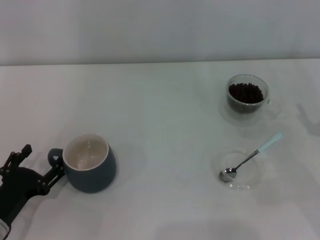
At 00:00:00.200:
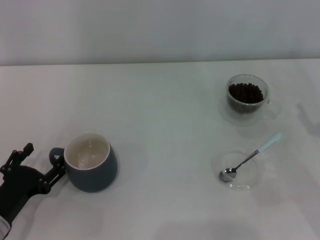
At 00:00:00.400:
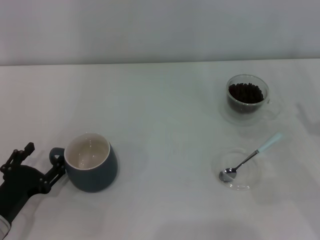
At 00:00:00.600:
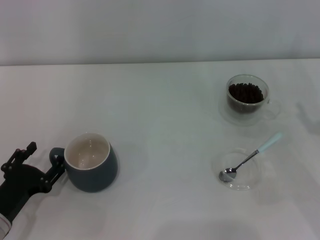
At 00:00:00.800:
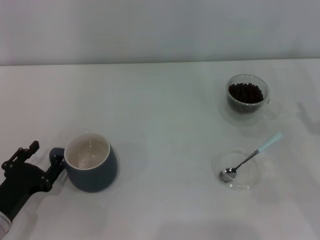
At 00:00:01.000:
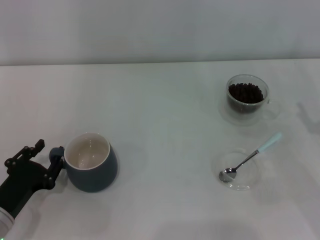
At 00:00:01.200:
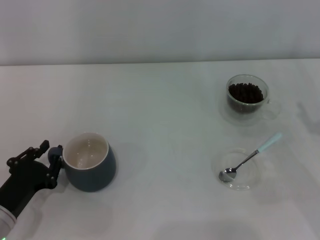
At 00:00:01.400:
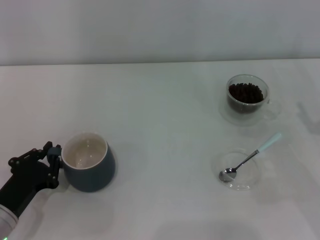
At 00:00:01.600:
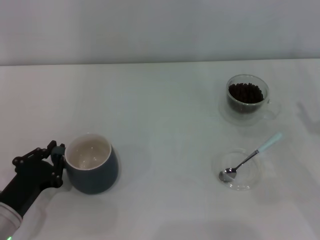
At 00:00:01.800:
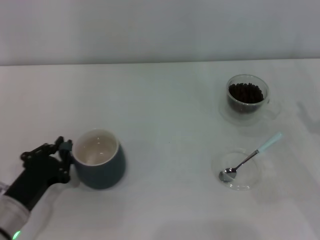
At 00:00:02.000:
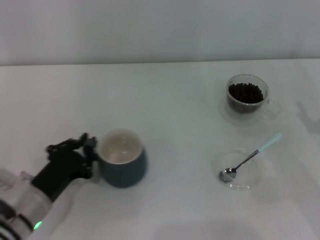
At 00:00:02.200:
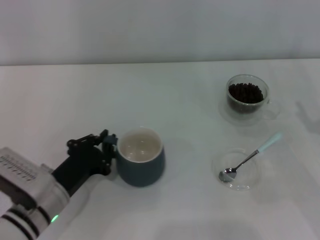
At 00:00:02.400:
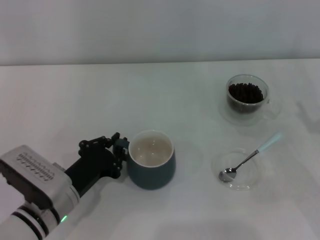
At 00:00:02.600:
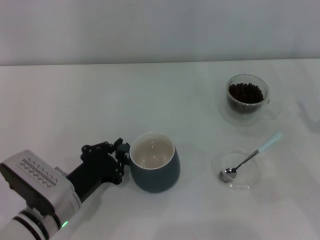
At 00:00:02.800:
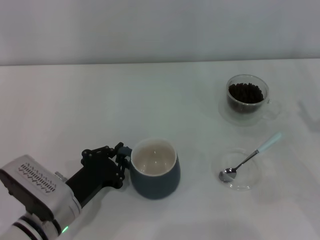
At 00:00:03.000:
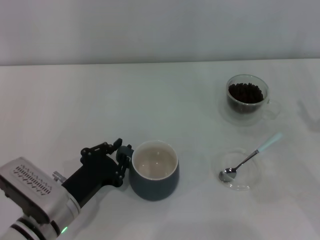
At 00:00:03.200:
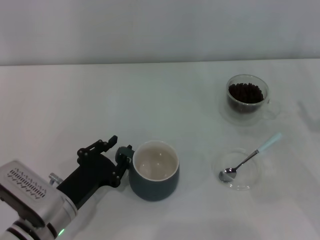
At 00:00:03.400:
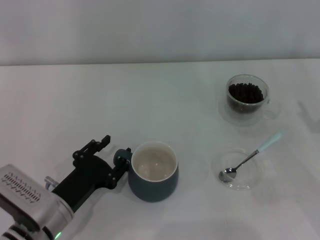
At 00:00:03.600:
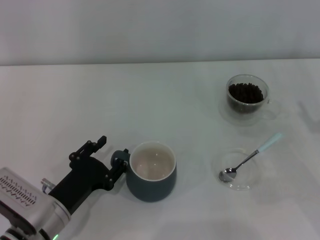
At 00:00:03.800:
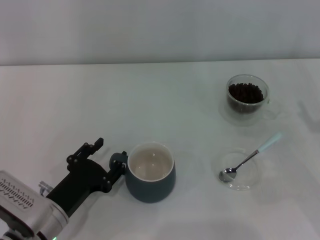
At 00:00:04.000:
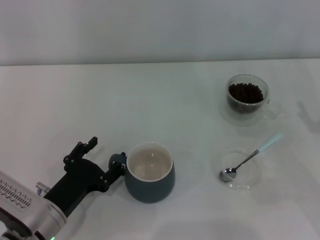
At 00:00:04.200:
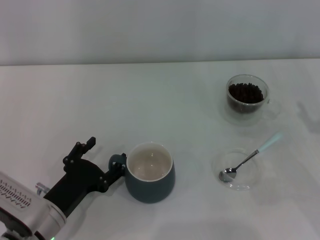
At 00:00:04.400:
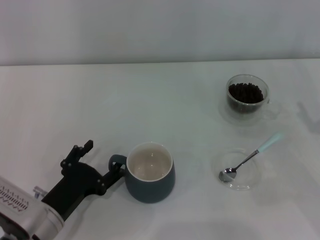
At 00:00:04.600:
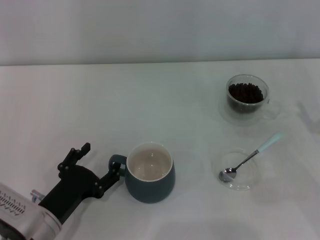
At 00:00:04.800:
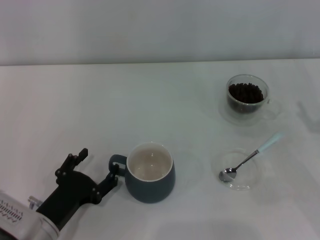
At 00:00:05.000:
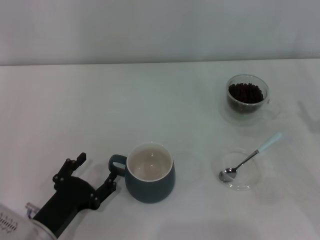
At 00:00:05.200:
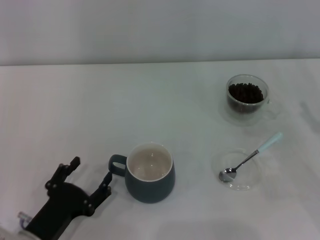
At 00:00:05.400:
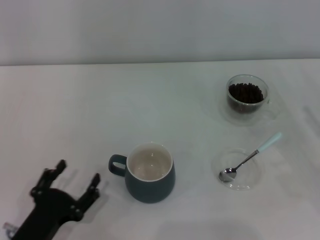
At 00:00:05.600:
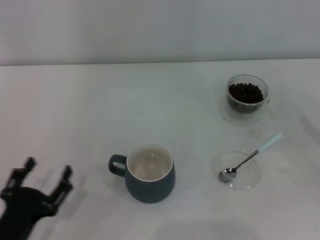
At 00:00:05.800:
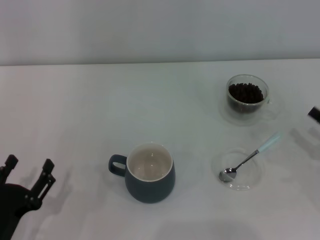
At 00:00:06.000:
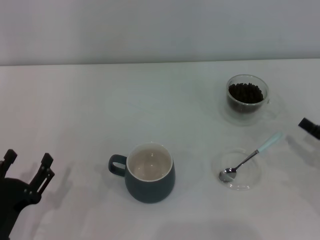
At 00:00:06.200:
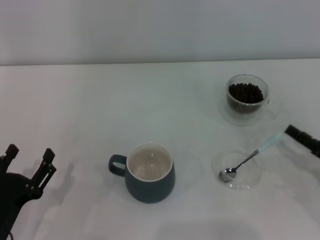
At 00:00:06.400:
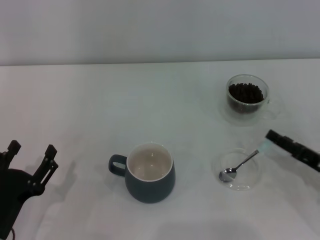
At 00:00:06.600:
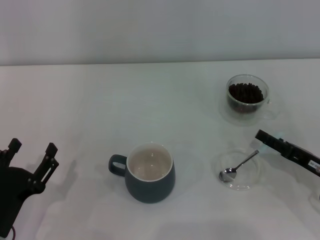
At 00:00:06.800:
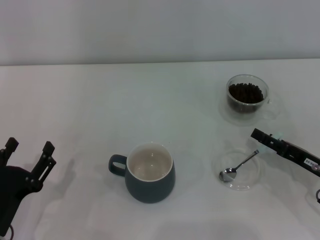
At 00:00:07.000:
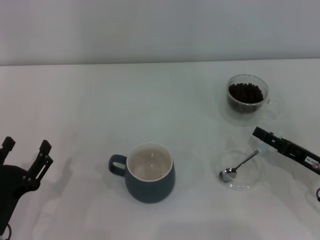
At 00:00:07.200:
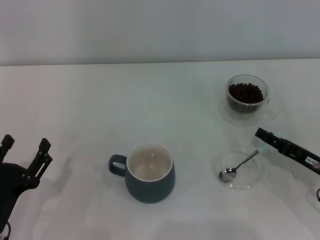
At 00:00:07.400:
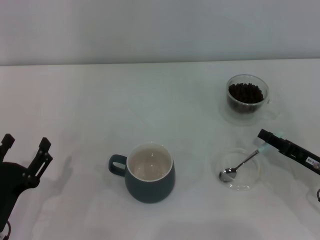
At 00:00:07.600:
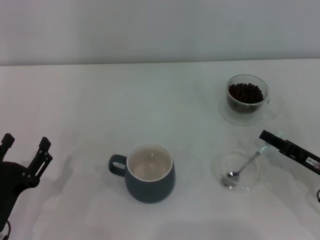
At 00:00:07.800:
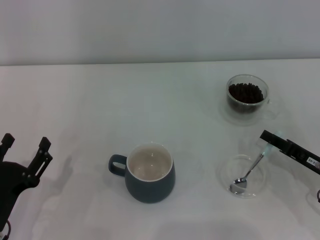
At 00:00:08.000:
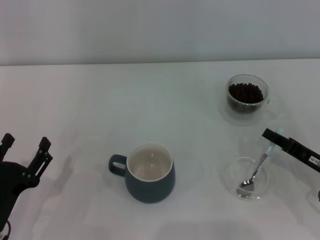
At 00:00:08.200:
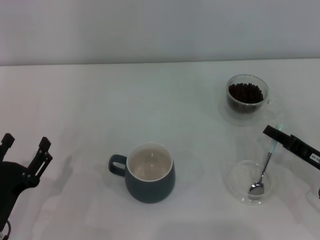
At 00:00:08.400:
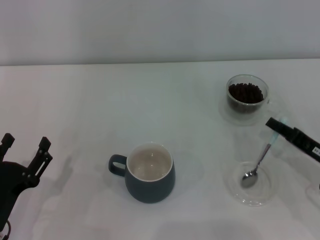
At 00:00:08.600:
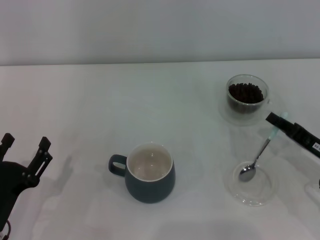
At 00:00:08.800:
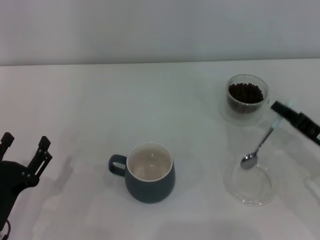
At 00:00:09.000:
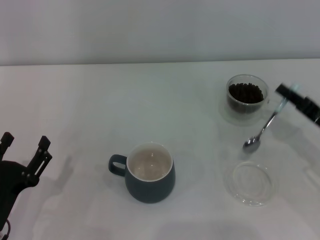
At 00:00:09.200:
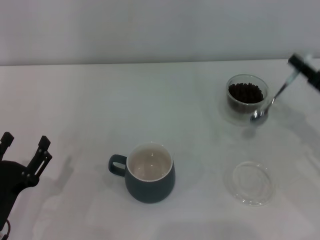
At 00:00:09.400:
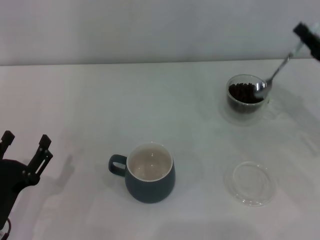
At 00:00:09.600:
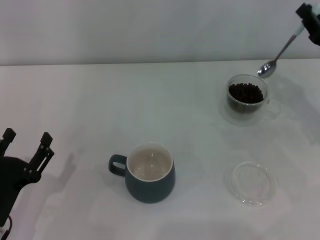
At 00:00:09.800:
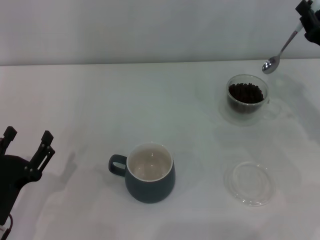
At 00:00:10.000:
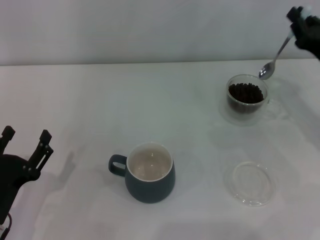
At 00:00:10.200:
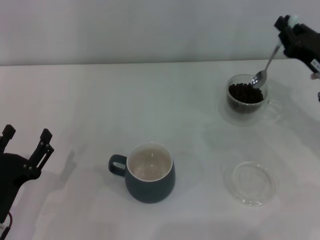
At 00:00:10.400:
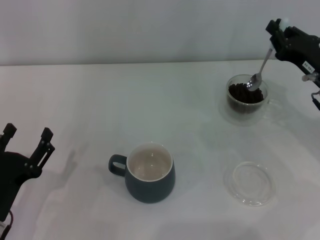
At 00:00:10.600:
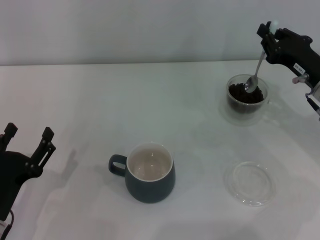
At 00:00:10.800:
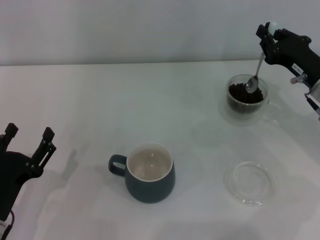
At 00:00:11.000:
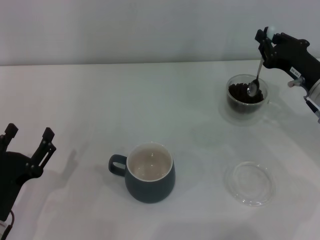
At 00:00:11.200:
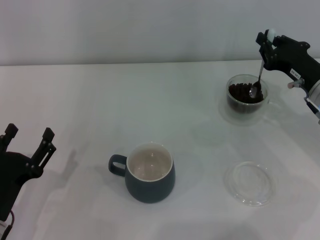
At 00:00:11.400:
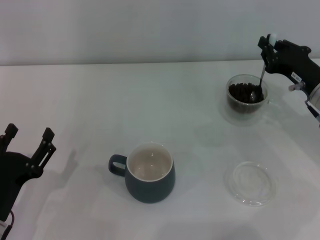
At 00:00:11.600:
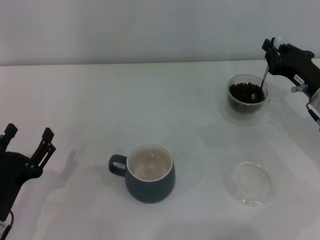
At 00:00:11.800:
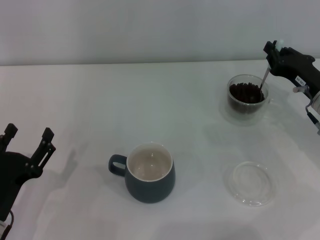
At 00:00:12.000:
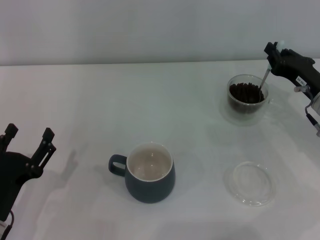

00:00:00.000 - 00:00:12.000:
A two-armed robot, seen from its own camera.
Task of the whole recording: Use a blue spoon to take out the coffee beans from the glass and pour them into the gray cup.
Step, 00:00:00.000 - 00:00:05.400: Move the cup to the center of view with the left gripper.
Step, 00:00:05.600 - 00:00:08.800: Pick up the spoon with the right gripper.
00:00:00.000 - 00:00:01.600: The left gripper closes.
00:00:01.600 - 00:00:03.000: The left gripper shifts about 10 cm to the right.
00:00:03.000 - 00:00:04.400: The left gripper opens up.
00:00:04.400 - 00:00:06.000: The right gripper moves roughly 5 cm. Meanwhile the left gripper goes about 10 cm to the left and backward.
00:00:06.000 - 00:00:07.600: The right gripper travels to the left by roughly 5 cm, and closes up.
00:00:07.600 - 00:00:09.000: The grippers move only a little.
00:00:09.000 - 00:00:10.400: The right gripper heads forward, covering roughly 5 cm.
00:00:10.400 - 00:00:12.000: The grippers move only a little.

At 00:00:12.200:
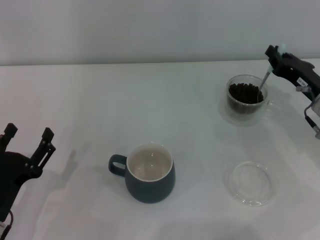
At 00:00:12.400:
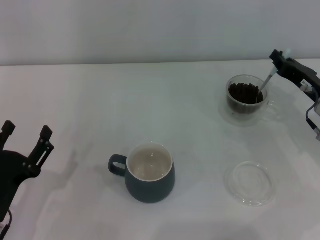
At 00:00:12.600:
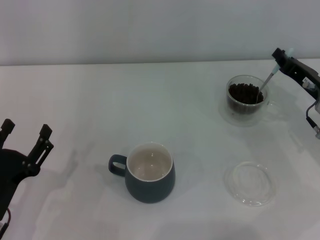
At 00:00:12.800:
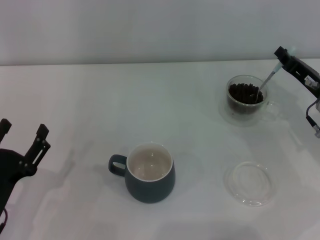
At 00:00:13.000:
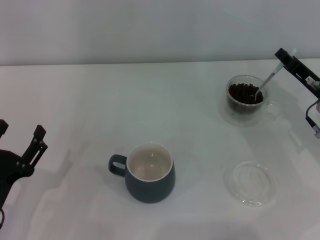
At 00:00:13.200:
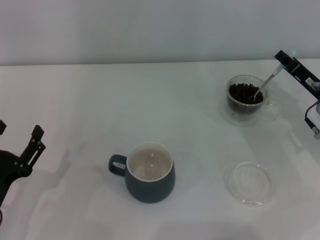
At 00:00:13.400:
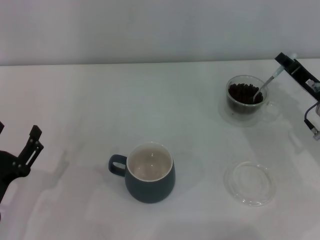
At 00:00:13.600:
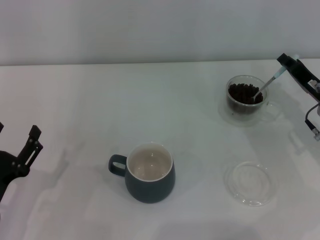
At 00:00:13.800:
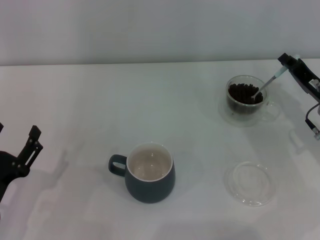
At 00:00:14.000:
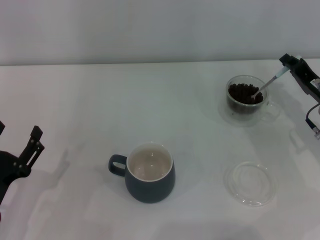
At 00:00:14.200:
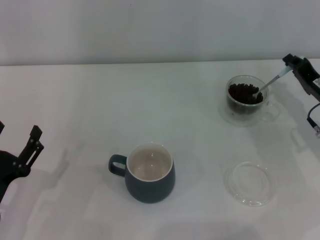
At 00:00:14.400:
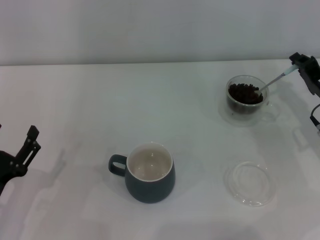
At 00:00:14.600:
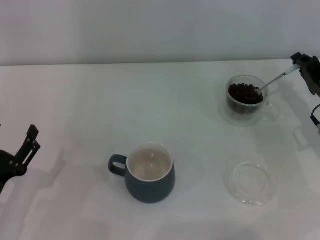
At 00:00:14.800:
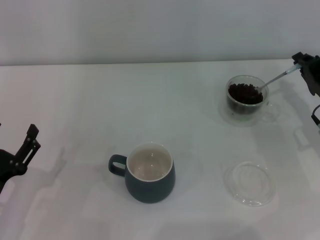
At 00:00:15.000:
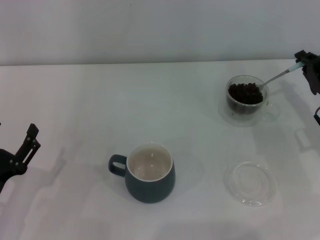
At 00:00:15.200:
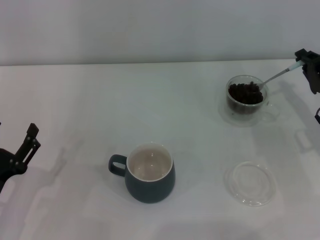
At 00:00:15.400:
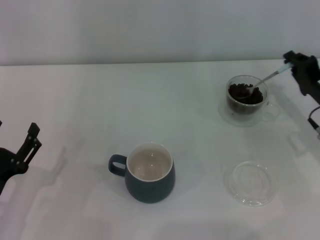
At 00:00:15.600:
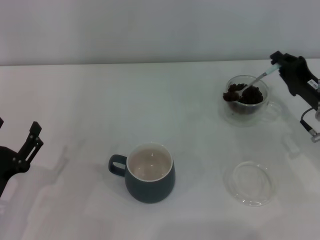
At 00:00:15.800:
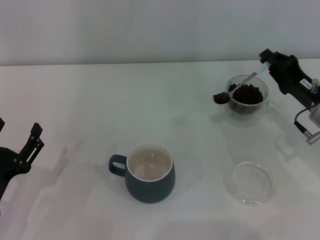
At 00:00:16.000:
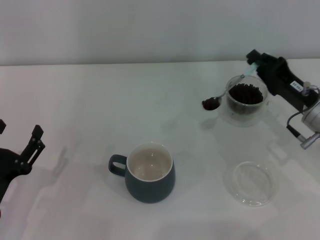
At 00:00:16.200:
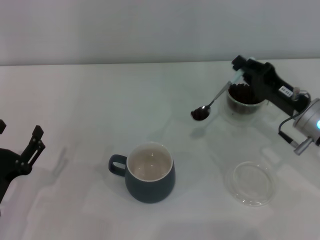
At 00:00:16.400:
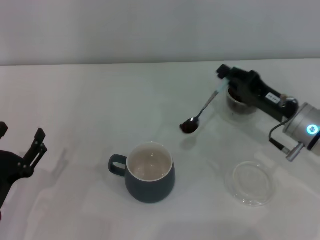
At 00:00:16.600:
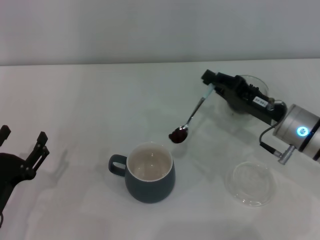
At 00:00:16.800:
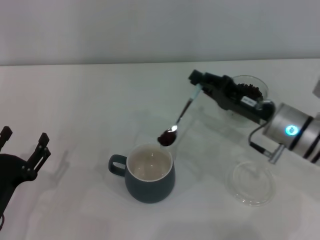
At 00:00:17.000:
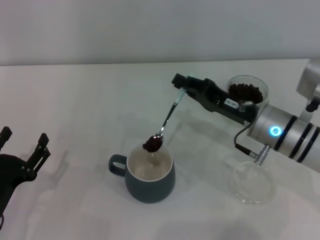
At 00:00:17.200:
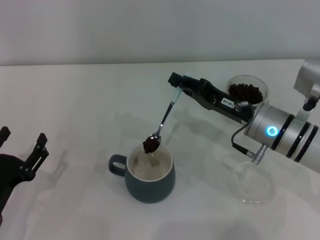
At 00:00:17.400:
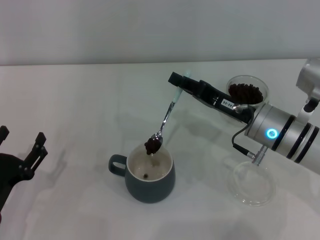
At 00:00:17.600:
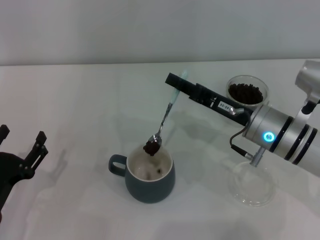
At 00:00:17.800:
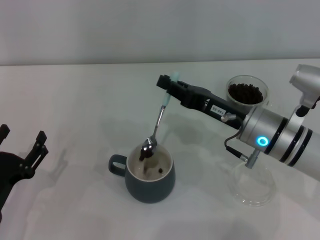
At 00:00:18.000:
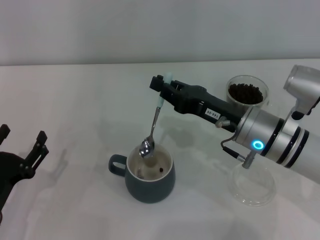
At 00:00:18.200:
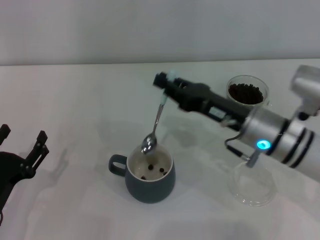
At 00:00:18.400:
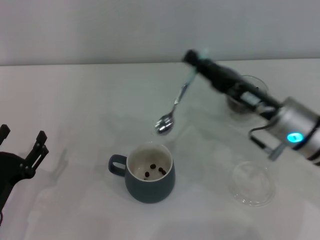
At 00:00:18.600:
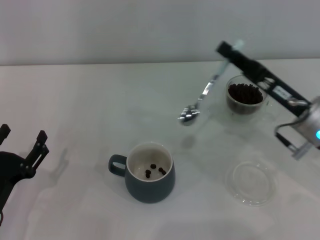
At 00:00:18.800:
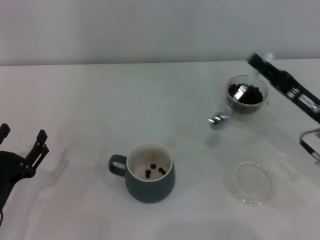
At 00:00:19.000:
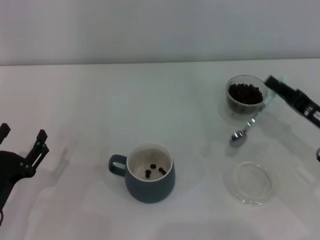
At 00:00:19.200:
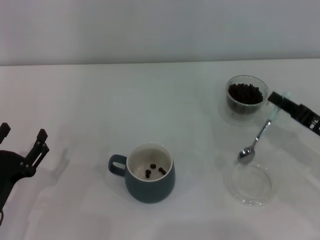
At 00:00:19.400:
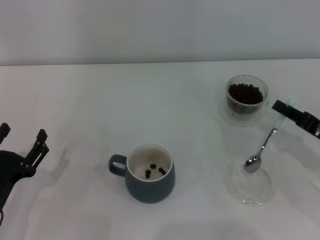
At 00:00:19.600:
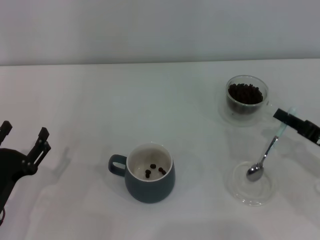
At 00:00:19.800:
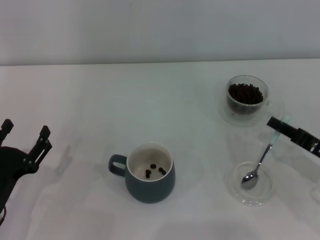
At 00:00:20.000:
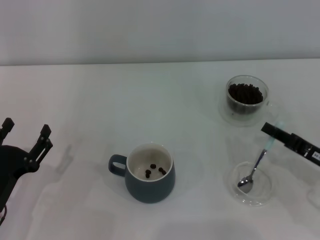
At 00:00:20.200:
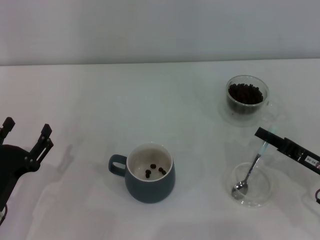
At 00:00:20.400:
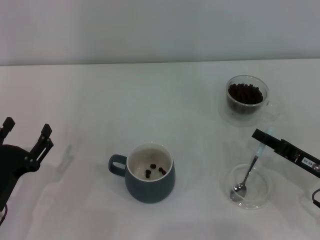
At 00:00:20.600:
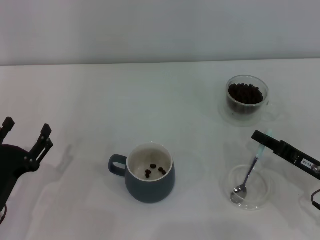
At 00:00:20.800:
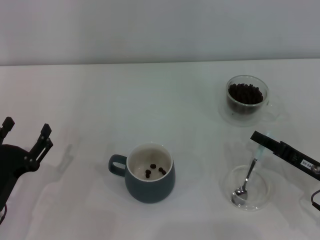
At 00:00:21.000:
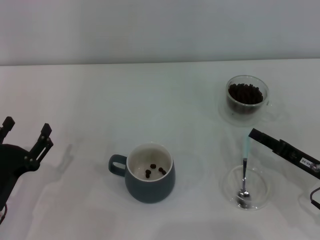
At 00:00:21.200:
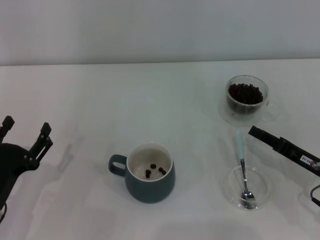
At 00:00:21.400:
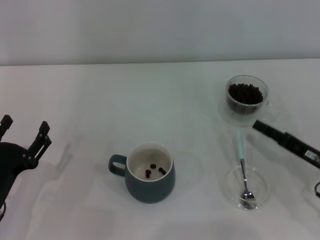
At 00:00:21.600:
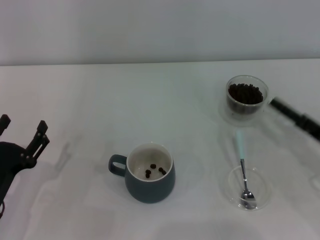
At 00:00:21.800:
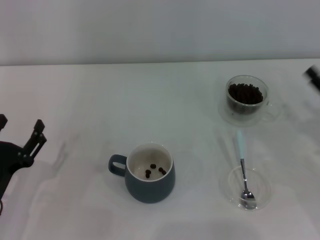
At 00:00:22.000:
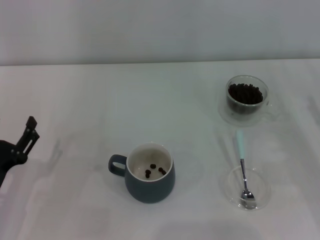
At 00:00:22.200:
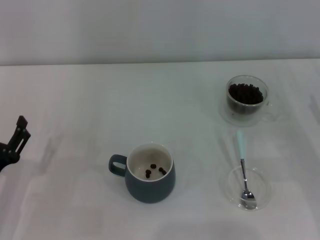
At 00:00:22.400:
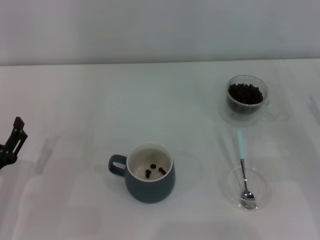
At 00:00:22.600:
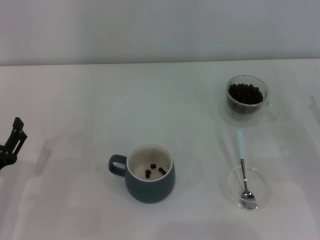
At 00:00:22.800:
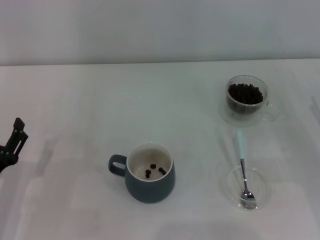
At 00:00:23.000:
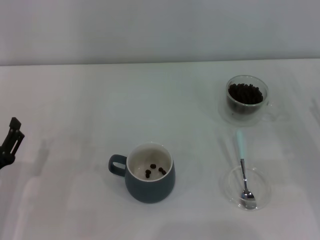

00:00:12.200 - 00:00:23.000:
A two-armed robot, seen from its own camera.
Task of the whole recording: Use a blue spoon to take out the coffee beans from the glass and pour them into the gray cup.
Step, 00:00:12.200 - 00:00:18.200: Scoop a spoonful of beans into the cup with the right gripper.
Step, 00:00:18.400 - 00:00:21.400: Place the spoon back in its original place with the right gripper.
00:00:13.800 - 00:00:15.200: The grippers make only small movements.
00:00:15.200 - 00:00:16.800: The right gripper goes approximately 10 cm to the left.
00:00:18.400 - 00:00:20.000: The right gripper shifts approximately 15 cm to the right, downward and backward.
00:00:20.000 - 00:00:21.400: The grippers make only small movements.
00:00:21.400 - 00:00:23.000: The right gripper heads to the right, covering roughly 5 cm, and opens up.
